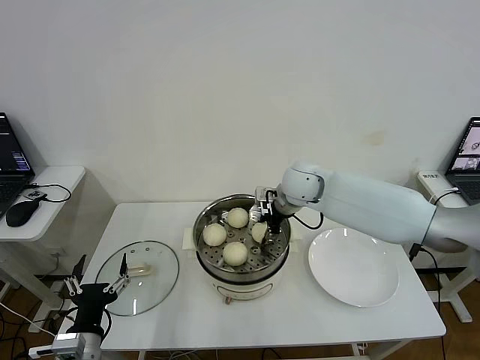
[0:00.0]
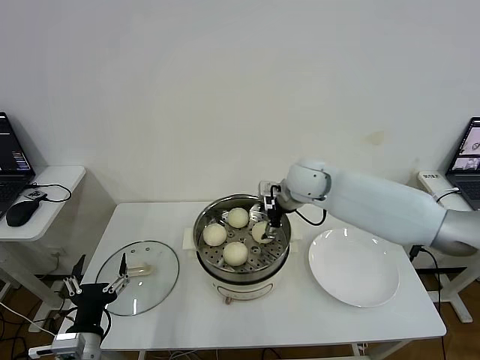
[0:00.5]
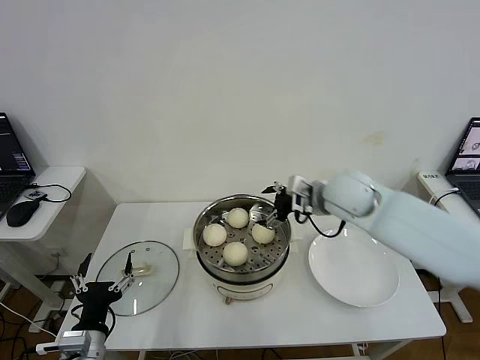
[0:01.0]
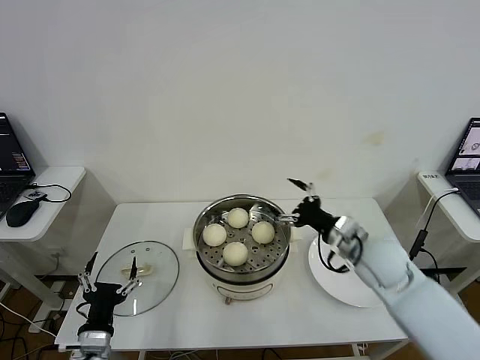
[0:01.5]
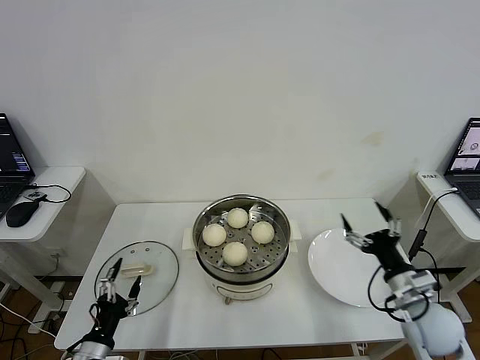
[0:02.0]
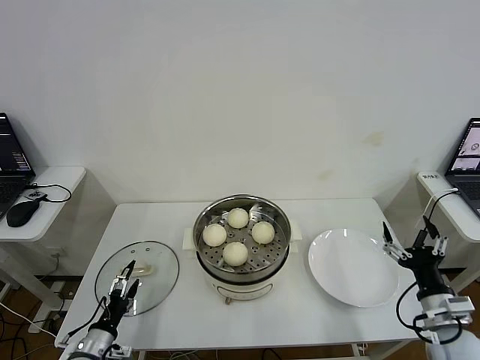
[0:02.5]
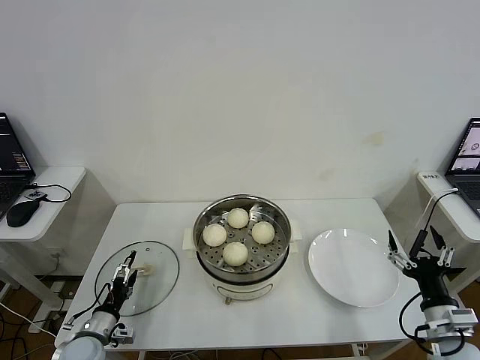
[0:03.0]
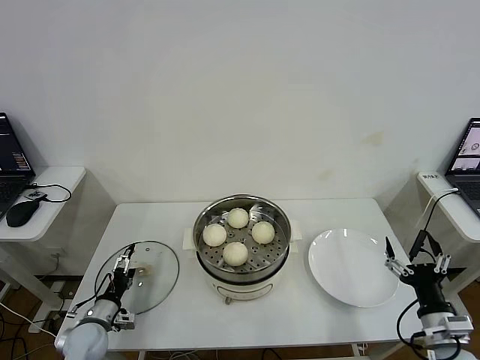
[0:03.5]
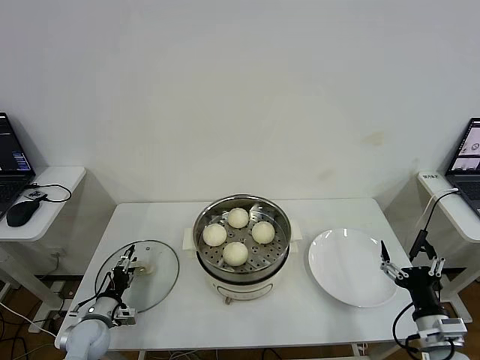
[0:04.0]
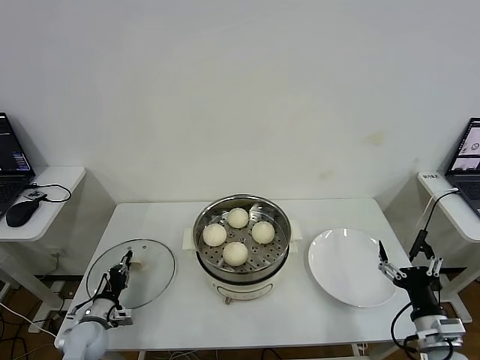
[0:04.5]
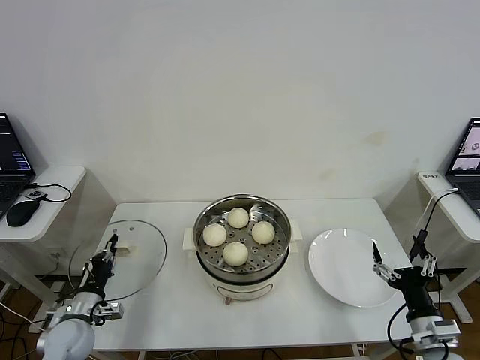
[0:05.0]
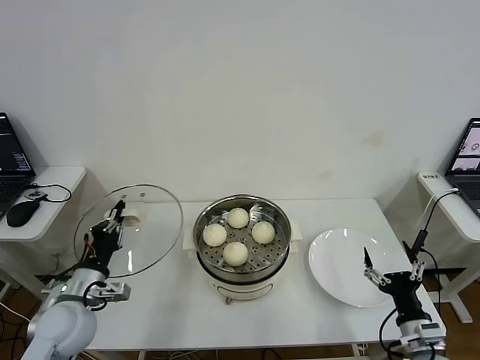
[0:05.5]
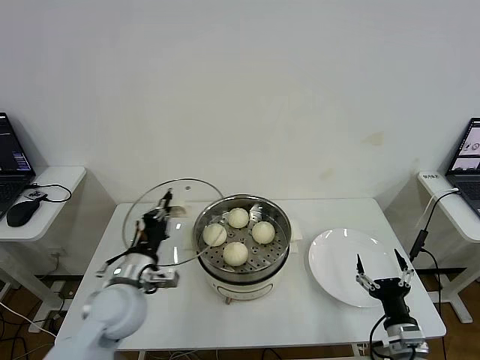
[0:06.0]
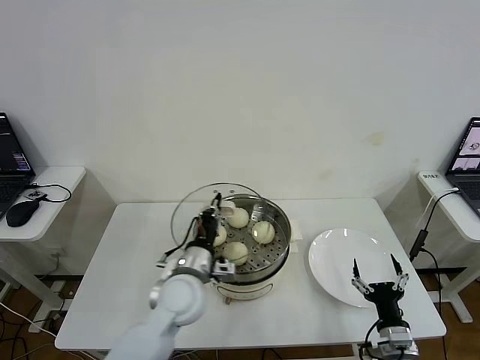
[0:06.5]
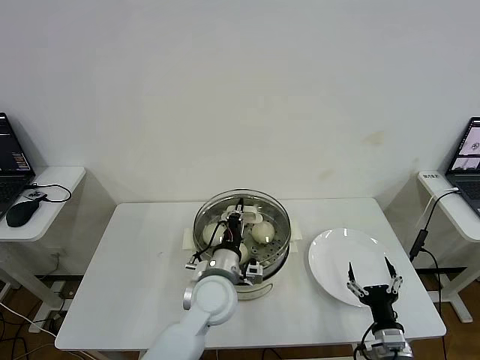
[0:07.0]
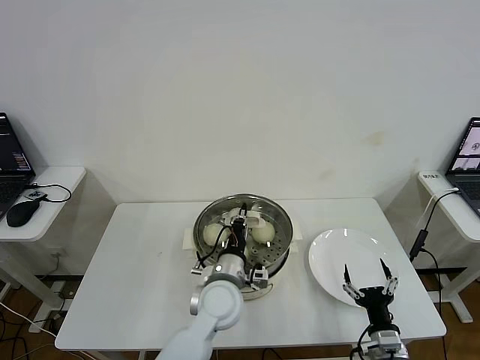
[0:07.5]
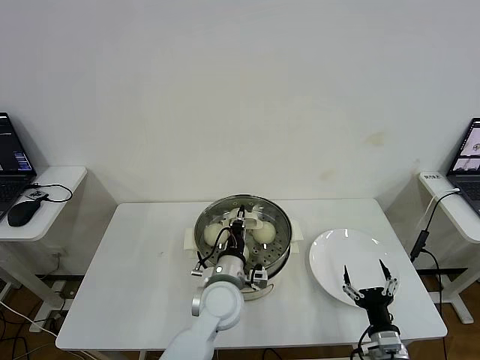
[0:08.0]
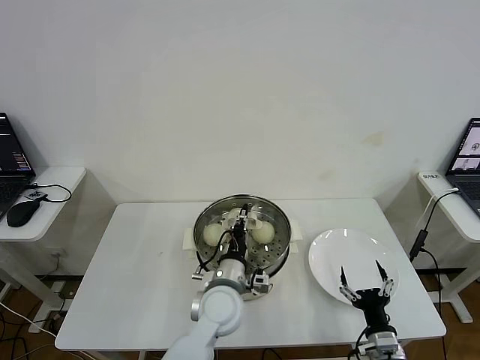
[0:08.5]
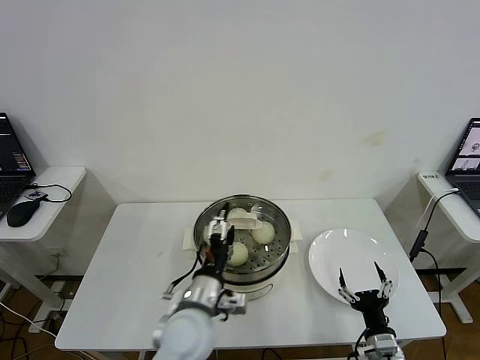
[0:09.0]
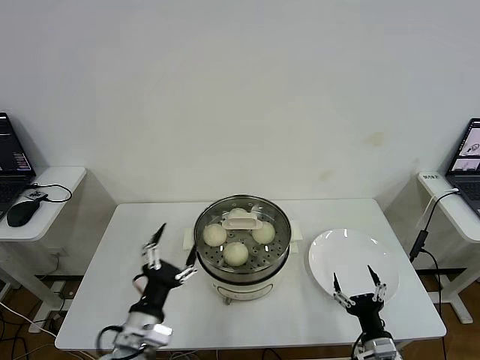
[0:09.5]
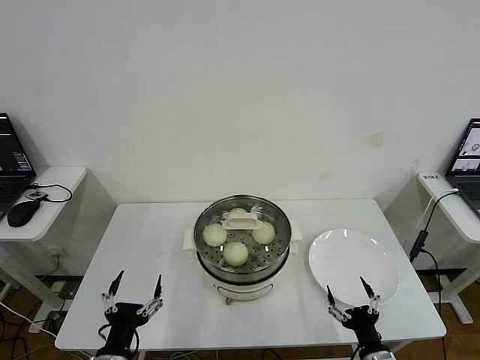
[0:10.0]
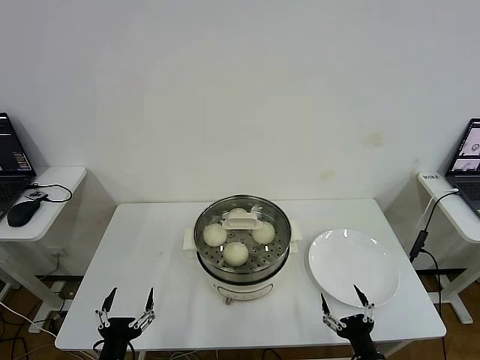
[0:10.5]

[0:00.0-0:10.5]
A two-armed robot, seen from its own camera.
Step, 0:01.0 to 0:04.5: Grasp the pot lid with left gripper.
Step, 0:05.0 to 0:08.5: Place the pot lid on the steamer with left gripper.
0:00.0 to 0:02.0: The right gripper goes roughly 35 cm backward, to the right and downward, and opens up. Meanwhile the left gripper travels downward by approximately 5 cm.
0:02.0 to 0:04.0: The right gripper goes some 10 cm backward. Meanwhile the left gripper travels forward and downward by some 15 cm.
0:04.0 to 0:06.5: The left gripper heads to the right and upward, covering approximately 30 cm, and closes up. Meanwhile the right gripper shifts approximately 10 cm downward and to the left.
0:06.5 to 0:08.5: The left gripper is displaced to the right by some 10 cm.
0:08.5 to 0:10.5: The right gripper goes about 5 cm backward, while the left gripper travels to the left and backward by approximately 30 cm, and opens.
